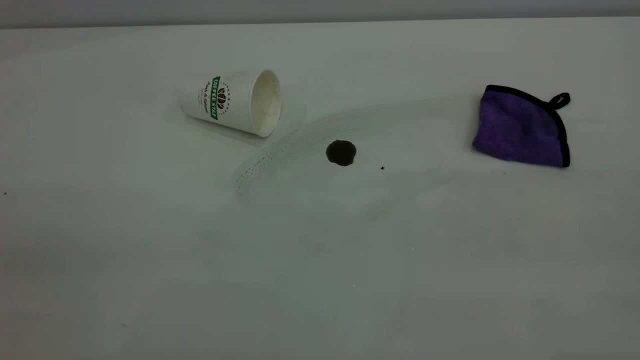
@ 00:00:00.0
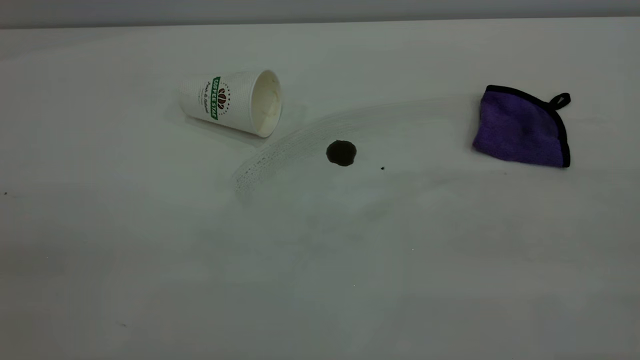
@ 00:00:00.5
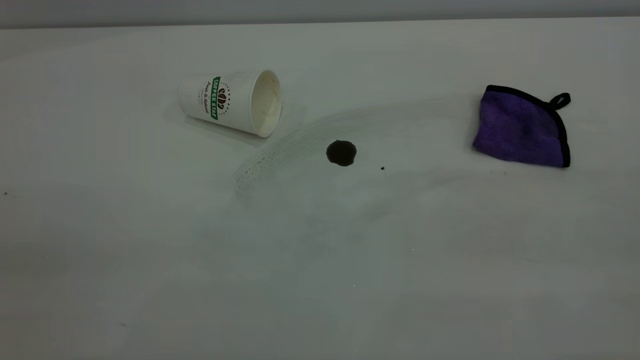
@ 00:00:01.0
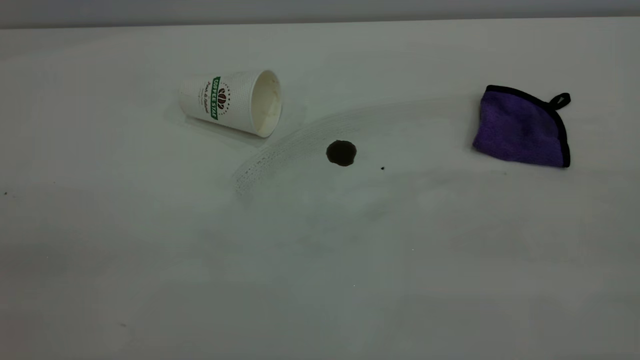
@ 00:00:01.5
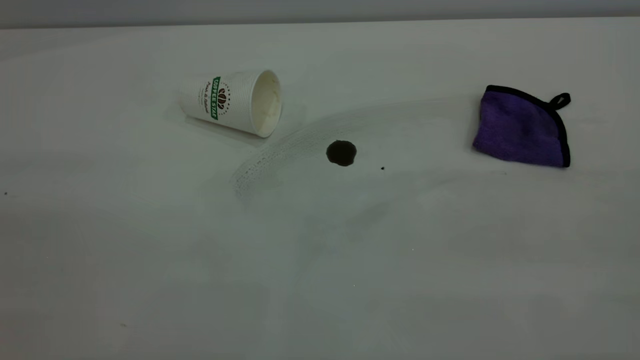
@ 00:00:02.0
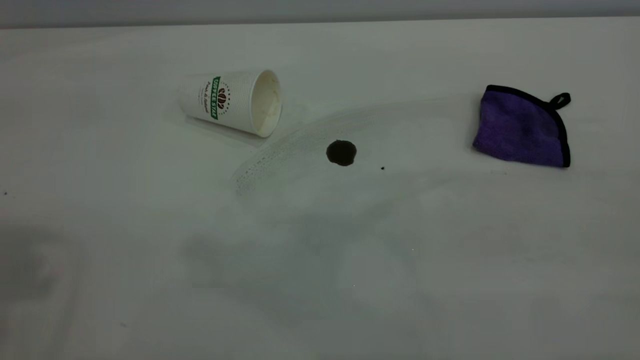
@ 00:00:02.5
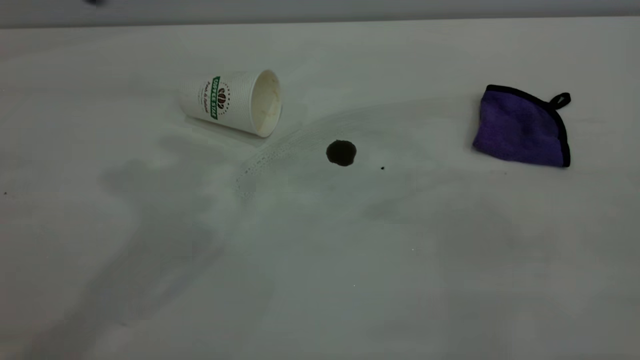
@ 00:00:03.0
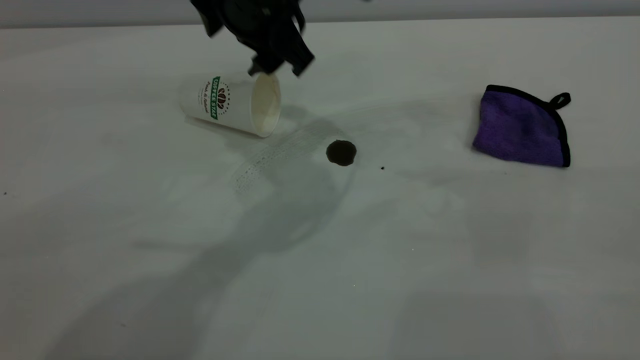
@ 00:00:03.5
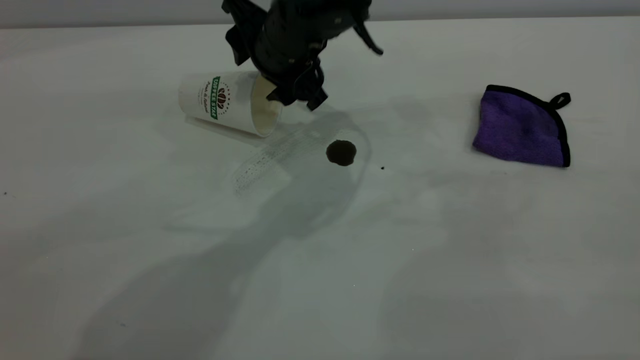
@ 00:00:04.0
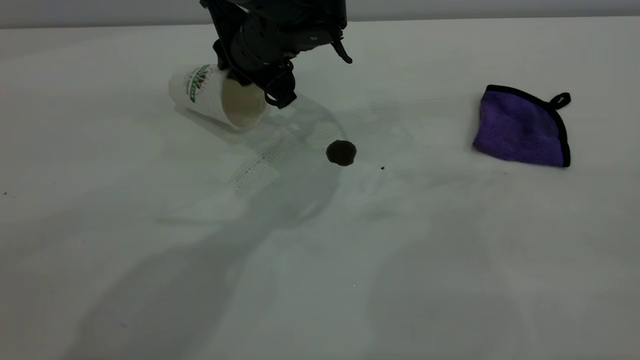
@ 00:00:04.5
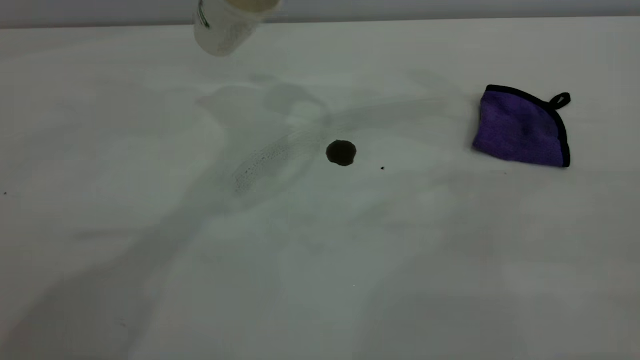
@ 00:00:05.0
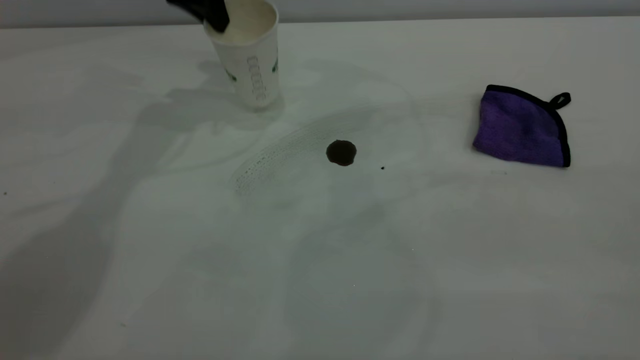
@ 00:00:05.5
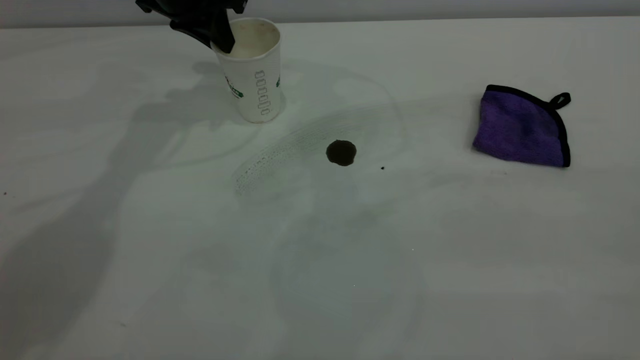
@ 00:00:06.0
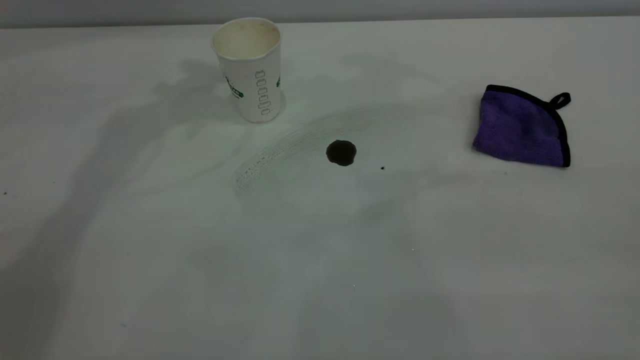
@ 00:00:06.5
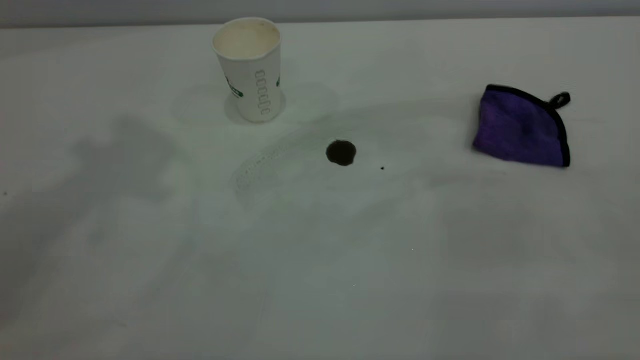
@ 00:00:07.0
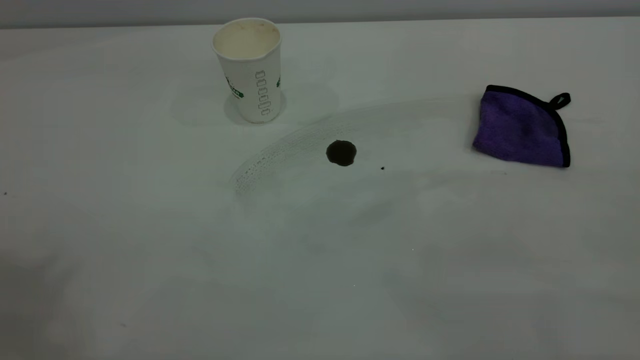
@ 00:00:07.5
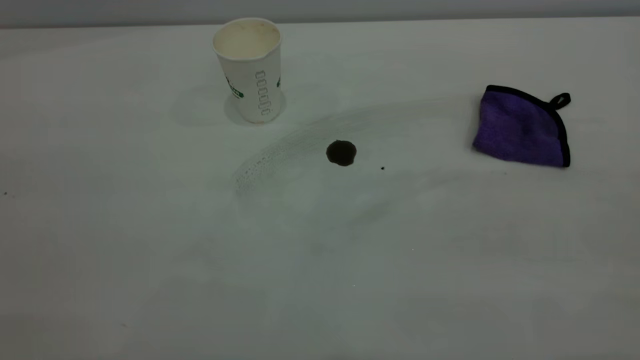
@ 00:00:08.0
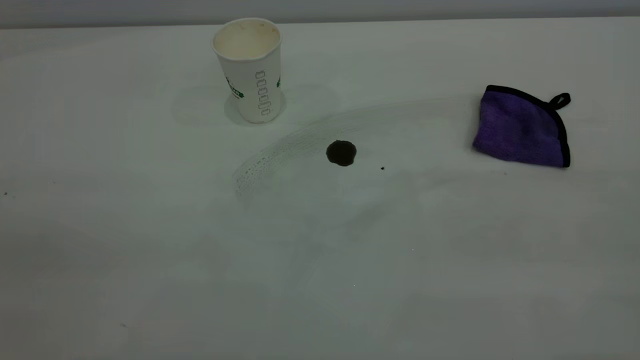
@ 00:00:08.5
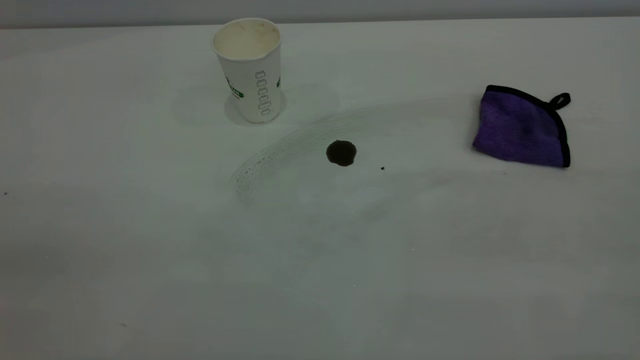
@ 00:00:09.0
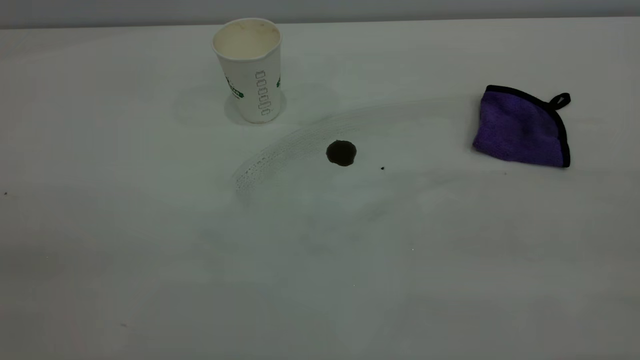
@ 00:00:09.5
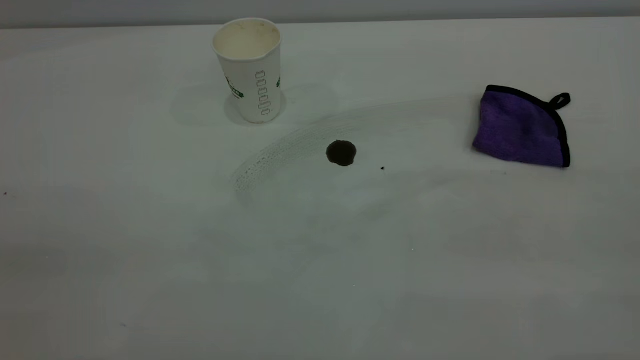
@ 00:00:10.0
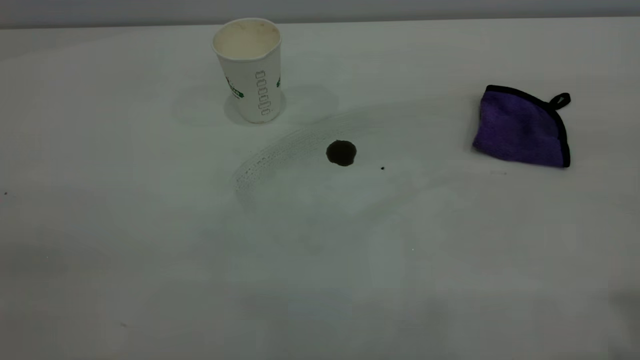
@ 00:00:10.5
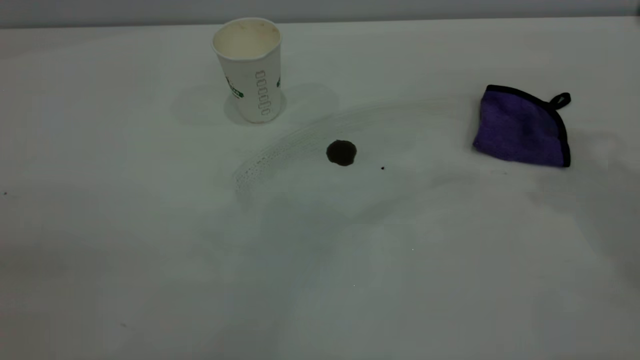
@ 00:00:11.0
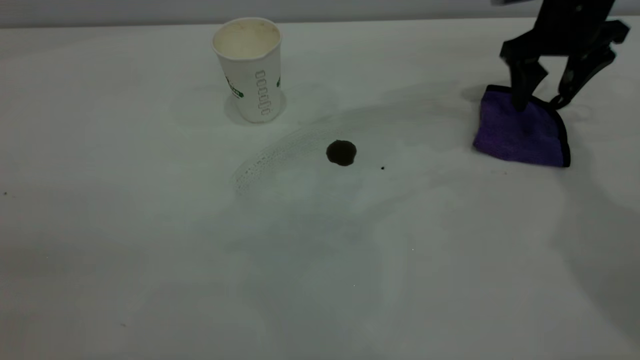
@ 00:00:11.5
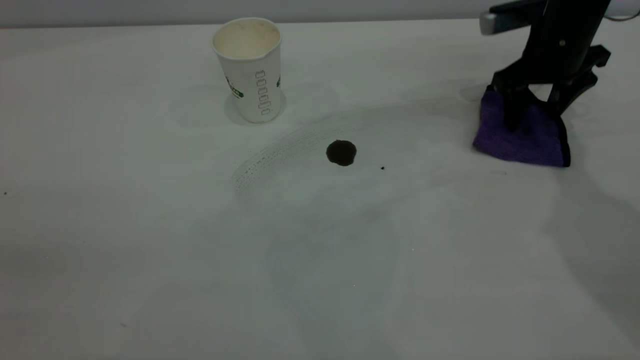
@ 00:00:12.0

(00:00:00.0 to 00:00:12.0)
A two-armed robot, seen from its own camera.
Task of the whole recording: the left gripper pick up the fallen cup and place it upright, the right gripper grasp the purple rag and wipe the coffee stain on the table, the right gripper put the purple rag back in its original position.
Step, 00:00:00.0 - 00:00:06.0: Stand the paper cup upright.
00:00:02.0 - 00:00:04.0: The left gripper travels forward, to the right and downward by about 50 cm, and opens its fingers.
00:00:04.0 - 00:00:06.0: The left gripper shifts about 20 cm to the left and forward, goes upward and returns, approximately 15 cm each way, and closes its fingers.
00:00:06.0 - 00:00:08.0: The left gripper shifts roughly 50 cm backward and upward, and opens, then closes once more.
00:00:10.0 - 00:00:12.0: The right gripper goes approximately 50 cm forward and downward.

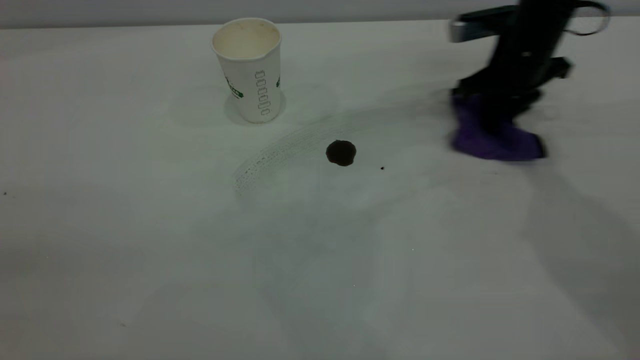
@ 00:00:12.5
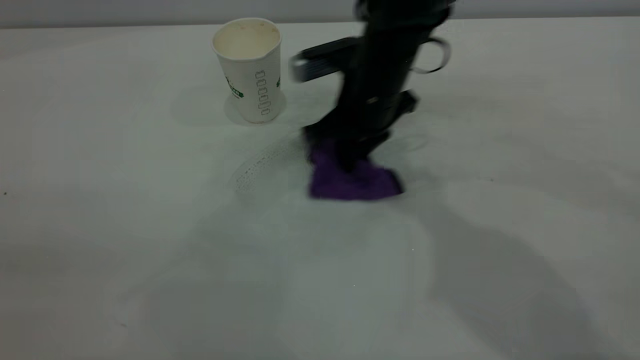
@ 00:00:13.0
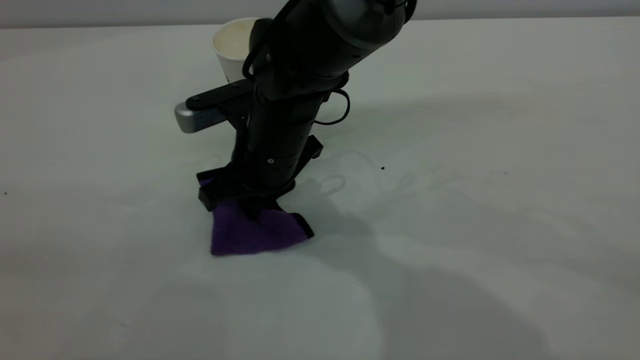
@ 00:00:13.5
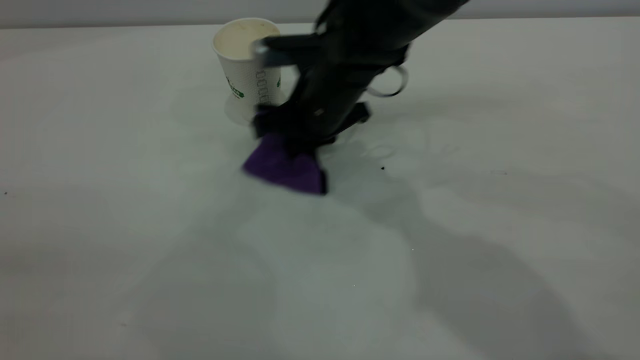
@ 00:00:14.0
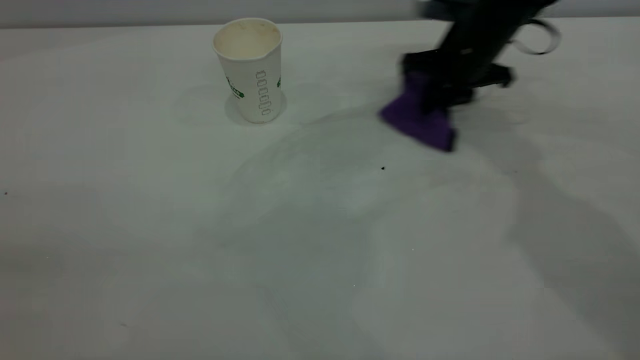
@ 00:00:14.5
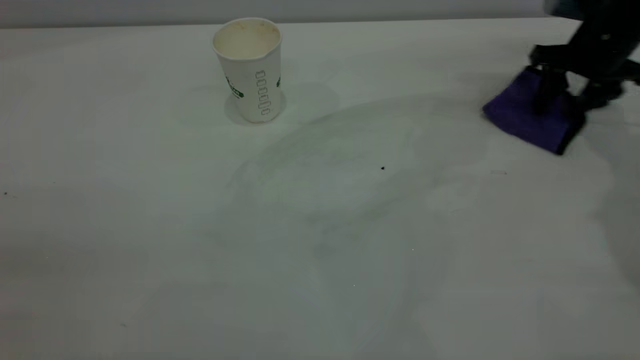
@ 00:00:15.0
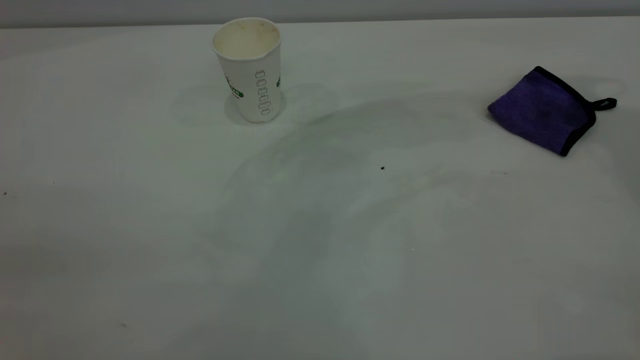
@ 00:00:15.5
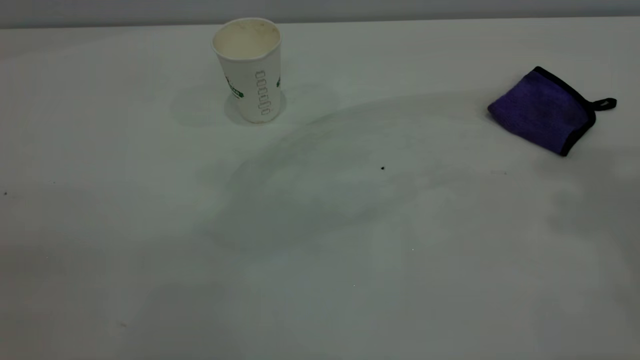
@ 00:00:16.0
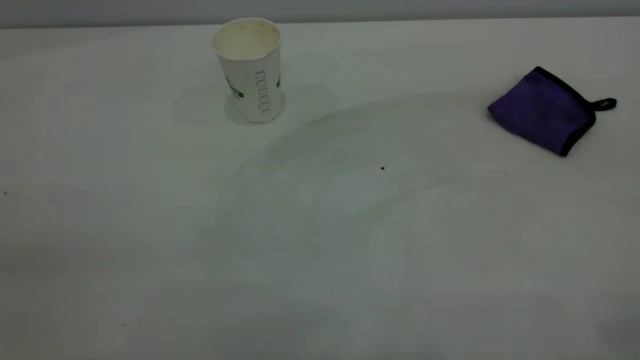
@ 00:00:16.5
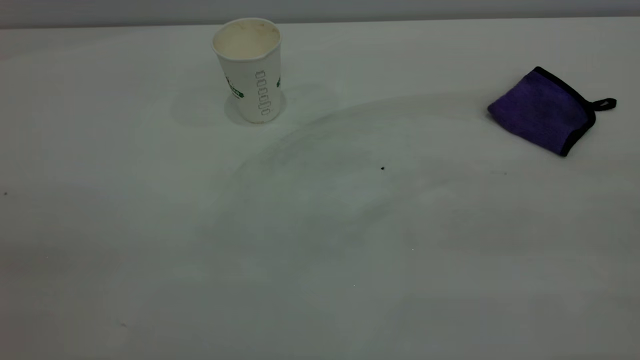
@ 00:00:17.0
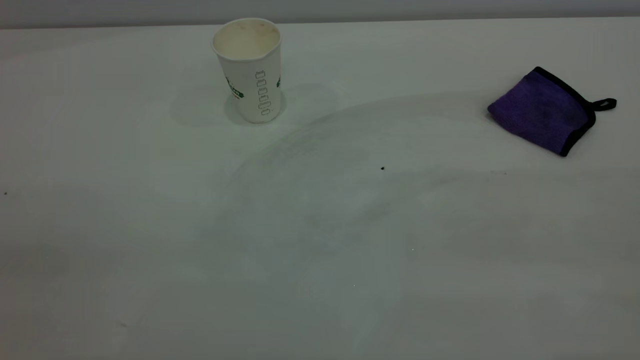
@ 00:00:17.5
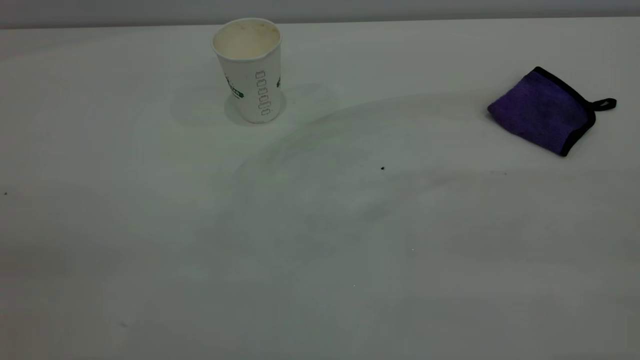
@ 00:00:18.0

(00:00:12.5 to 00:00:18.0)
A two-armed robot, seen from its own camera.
Task of the whole recording: the left gripper pick up the fallen cup and place it upright, the right gripper grasp the purple rag and wipe the coffee stain on the table, the right gripper put the purple rag back in its original position.
Step, 00:00:12.5 - 00:00:15.0: Wipe the stains off the table with a rag.
00:00:12.5 - 00:00:14.5: The right gripper moves about 25 cm to the left and comes back.
00:00:14.5 - 00:00:16.0: The right gripper shifts roughly 50 cm upward and backward, and opens up.
